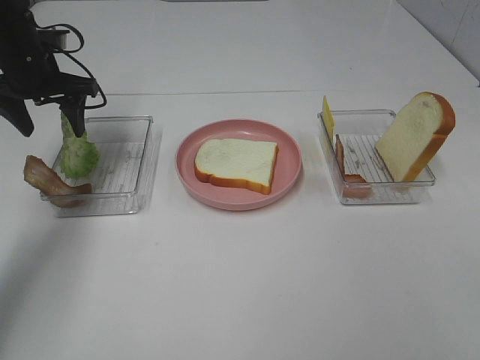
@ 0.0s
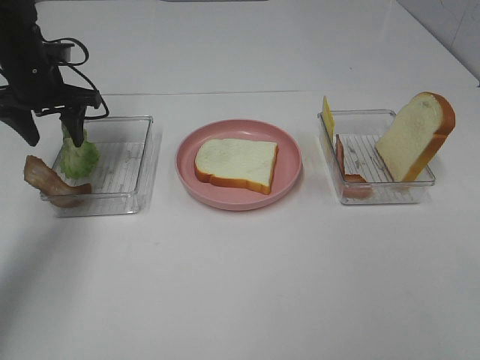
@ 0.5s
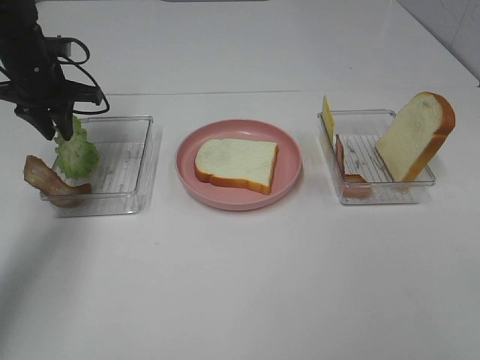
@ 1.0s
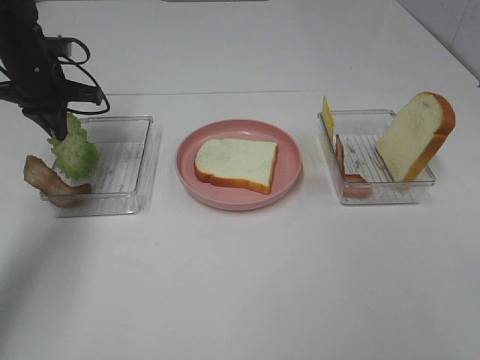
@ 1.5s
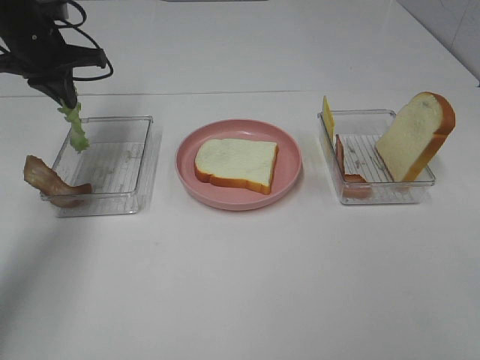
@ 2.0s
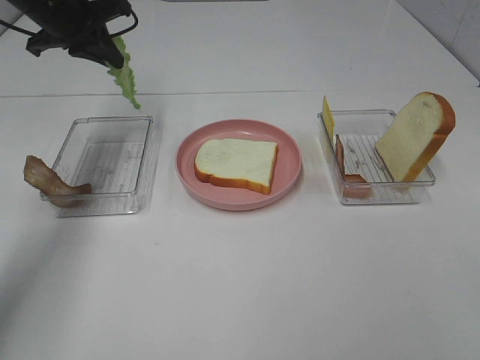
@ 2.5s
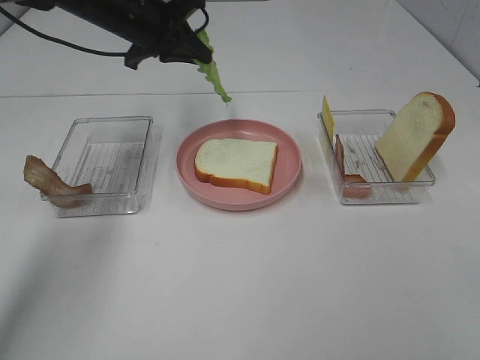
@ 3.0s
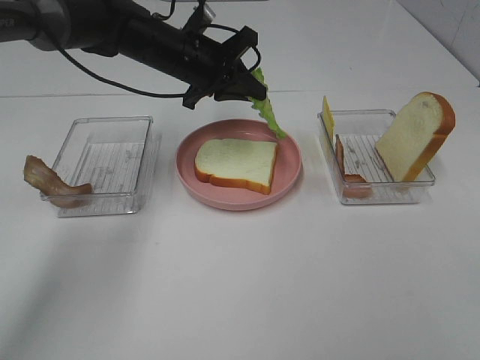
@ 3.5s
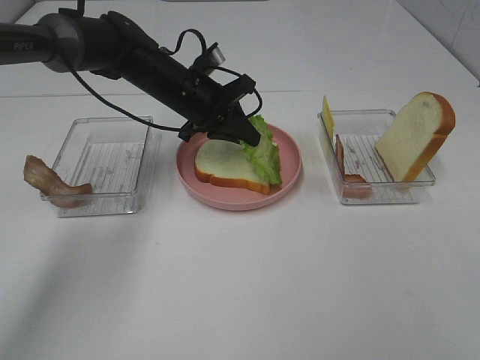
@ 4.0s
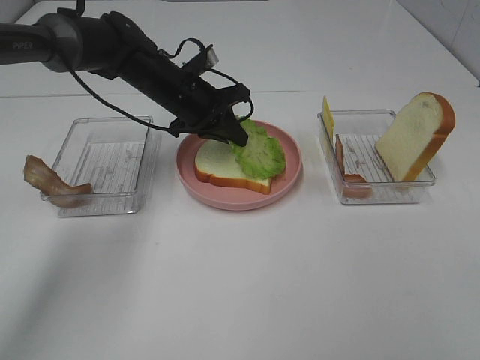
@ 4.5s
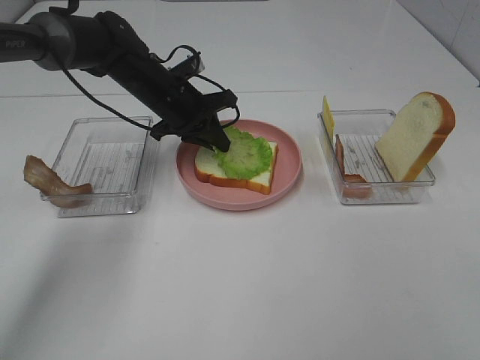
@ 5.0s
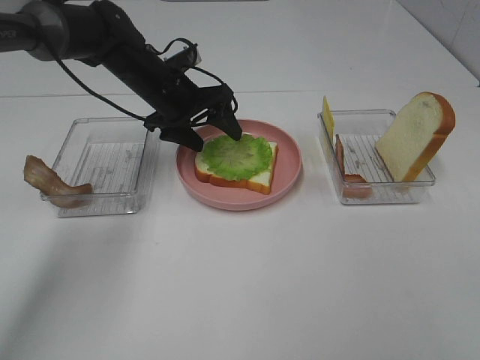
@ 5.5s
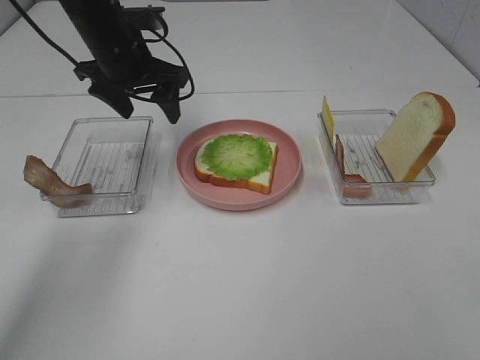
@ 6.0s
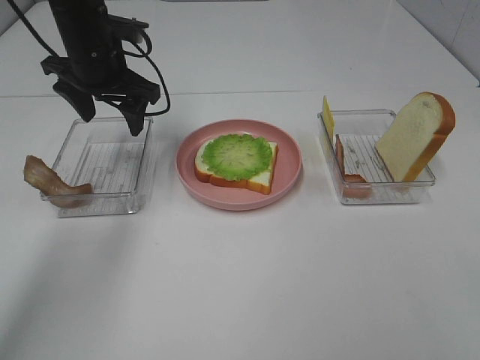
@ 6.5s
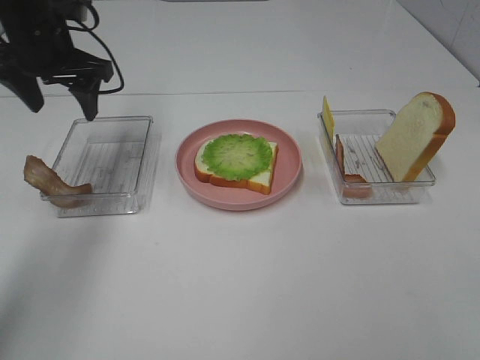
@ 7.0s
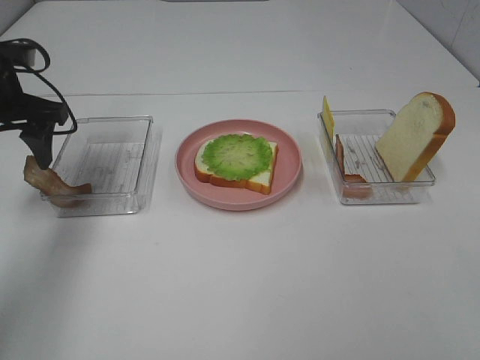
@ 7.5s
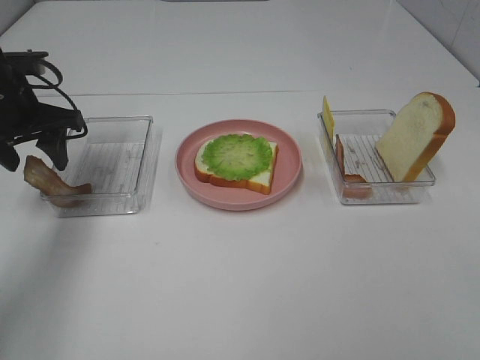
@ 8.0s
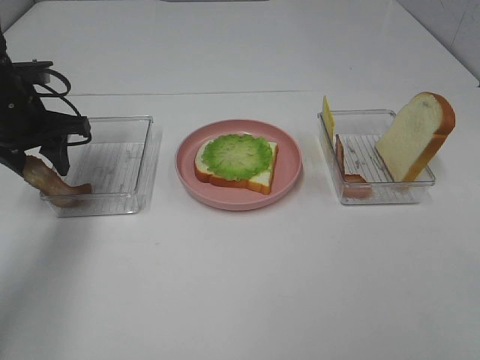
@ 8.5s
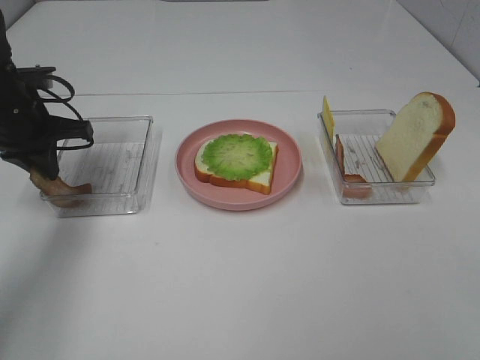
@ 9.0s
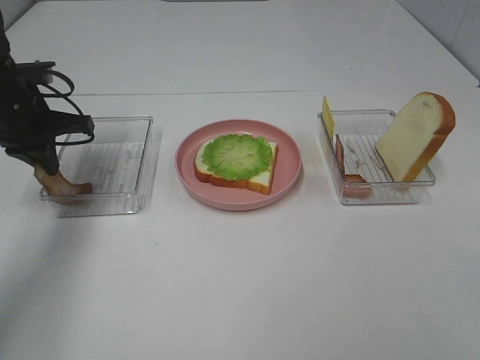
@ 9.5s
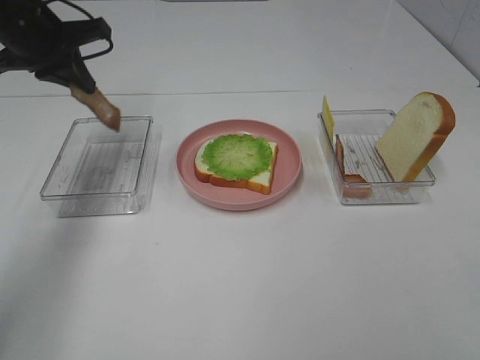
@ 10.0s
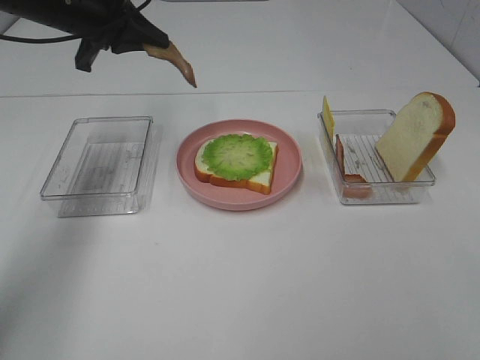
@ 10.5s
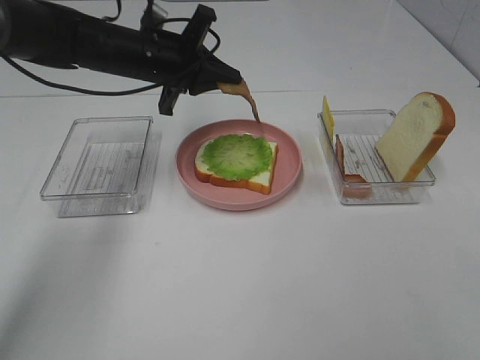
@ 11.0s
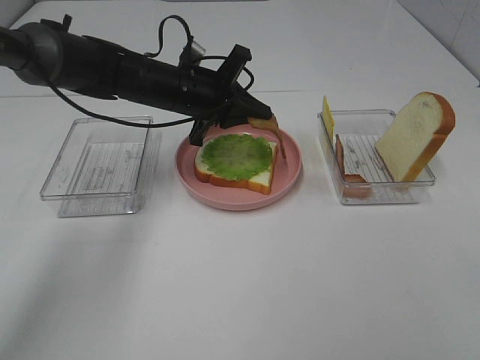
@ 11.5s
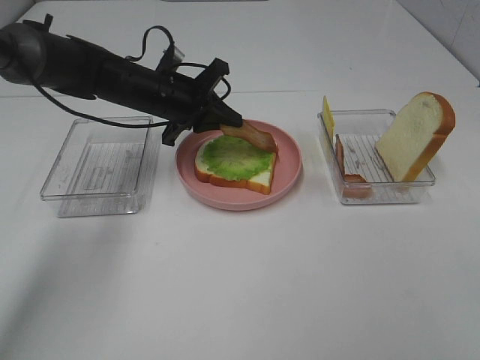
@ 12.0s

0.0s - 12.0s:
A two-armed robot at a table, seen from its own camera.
Task of the whole recording: Make sandwiches.
Step, 1.5s - 5.5s: Left hand:place the lettuce slice on the bread slice.
Step, 6.0s - 9.0s: Left hand:grab the bacon.
0.0s - 2.0s: The left gripper closes up.
2.0s - 4.0s: The left gripper is displaced to the right and downward by some 20 cm.
4.0s - 6.0s: The left gripper moves upward and to the left, about 10 cm, and opens.
6.0s - 8.0s: The left gripper shifts roughly 15 cm to the left and backward.
8.0s - 10.0s: The left gripper shifts some 5 cm upward, and closes.
10.0s - 12.0s: The left gripper is displaced downward and to the right by about 15 cm.

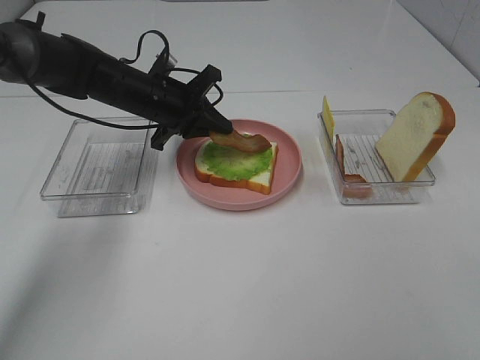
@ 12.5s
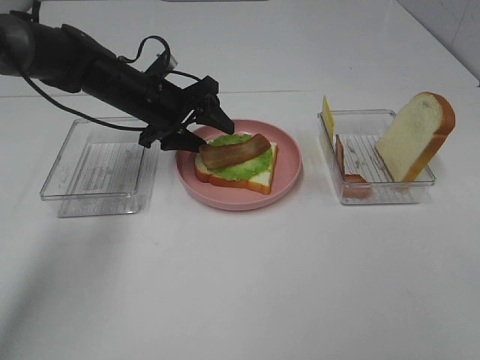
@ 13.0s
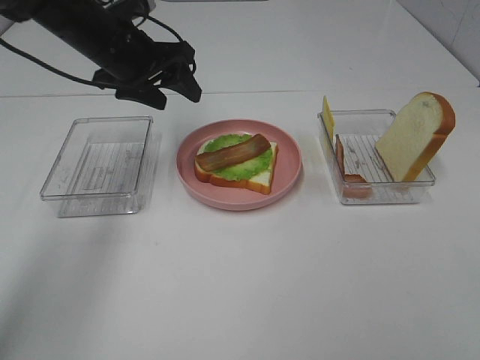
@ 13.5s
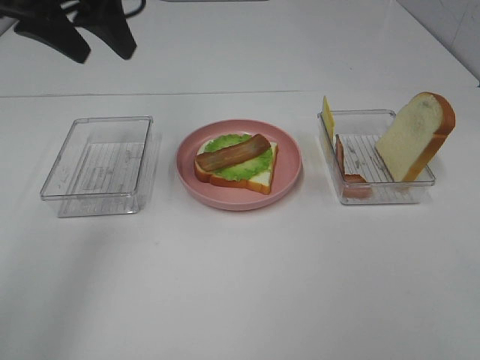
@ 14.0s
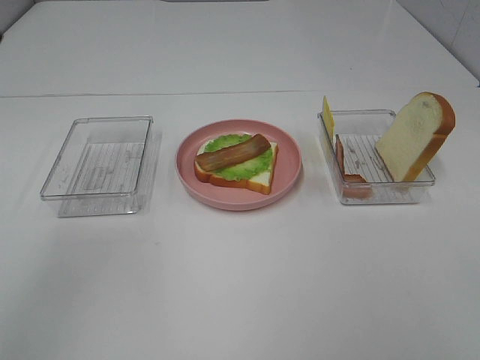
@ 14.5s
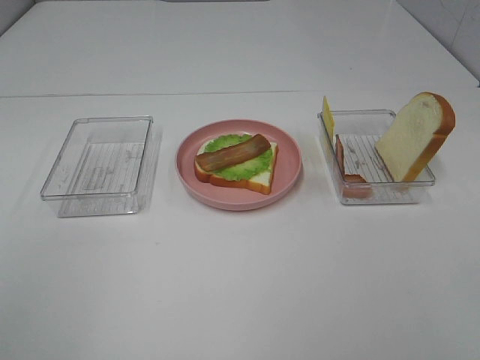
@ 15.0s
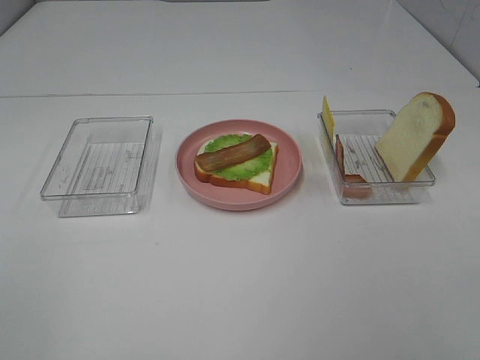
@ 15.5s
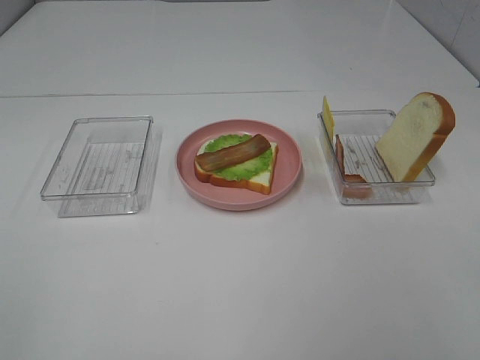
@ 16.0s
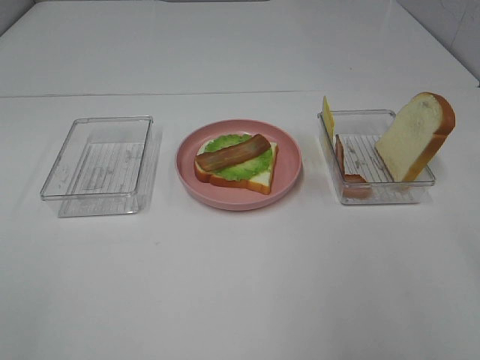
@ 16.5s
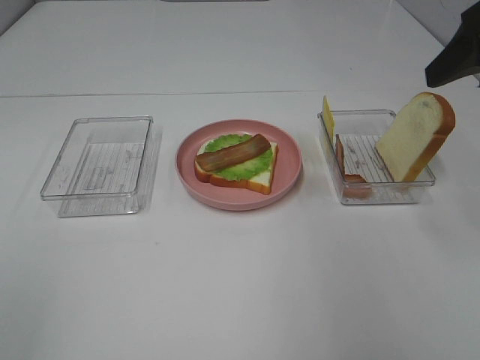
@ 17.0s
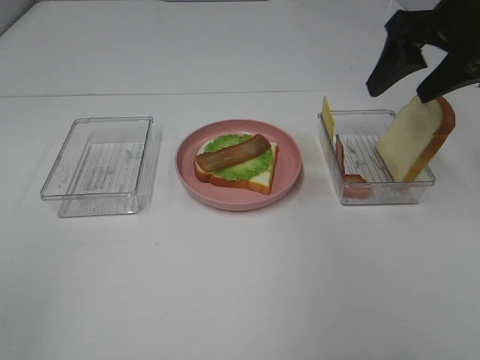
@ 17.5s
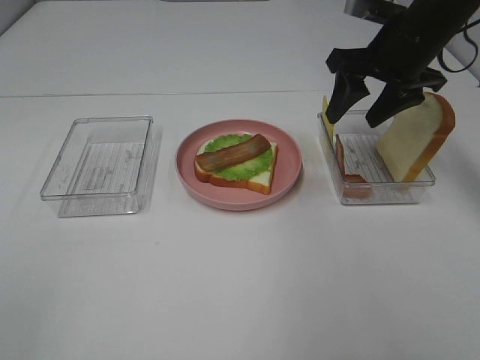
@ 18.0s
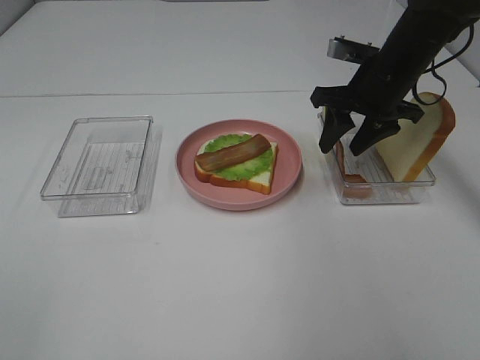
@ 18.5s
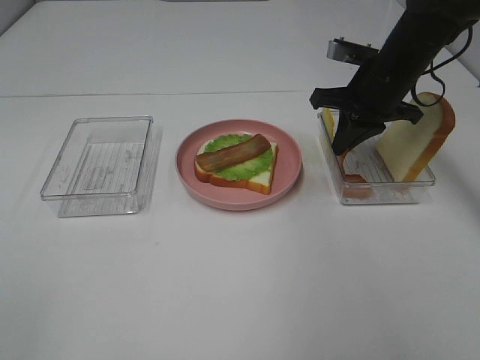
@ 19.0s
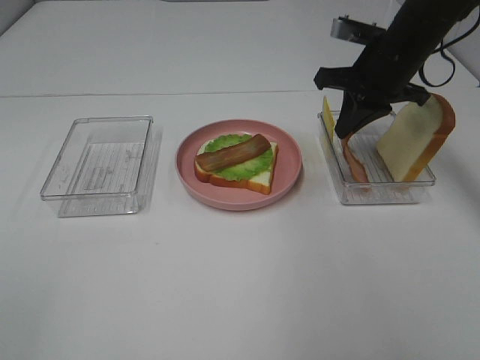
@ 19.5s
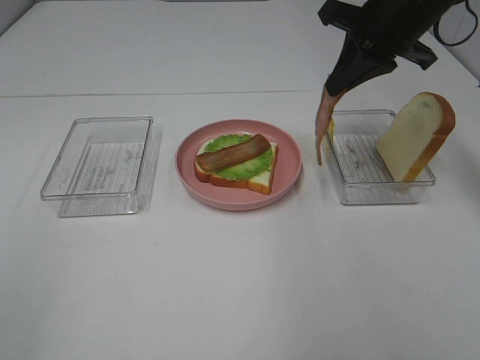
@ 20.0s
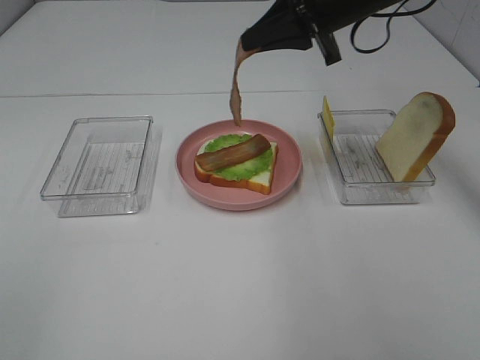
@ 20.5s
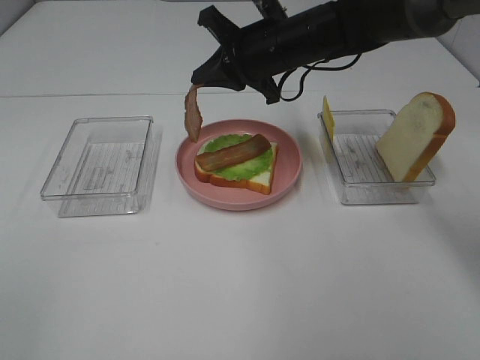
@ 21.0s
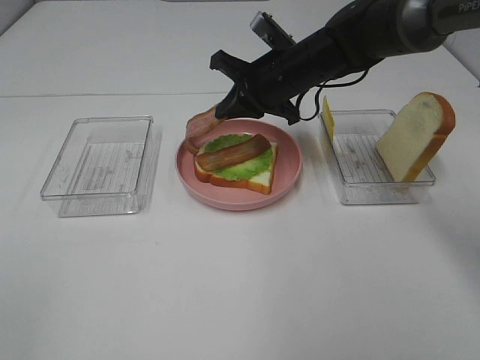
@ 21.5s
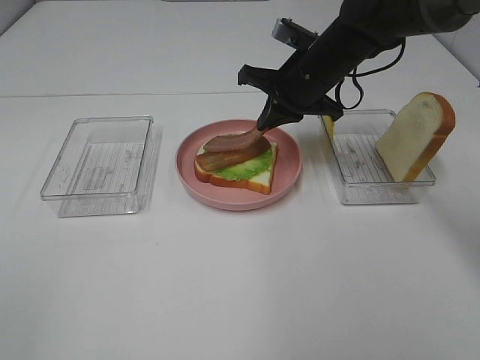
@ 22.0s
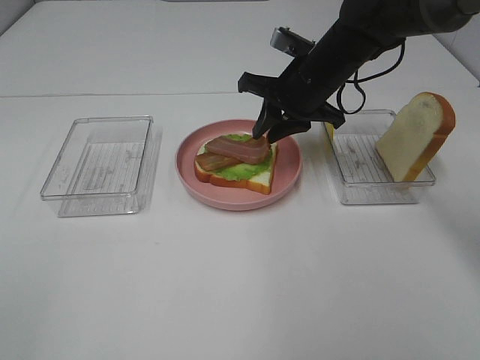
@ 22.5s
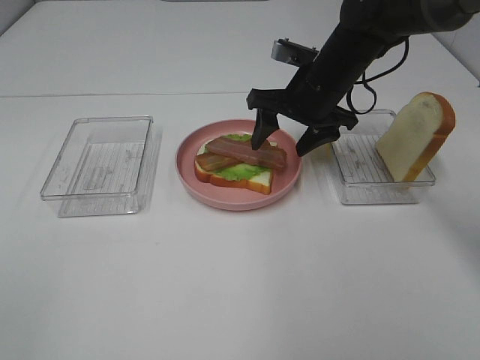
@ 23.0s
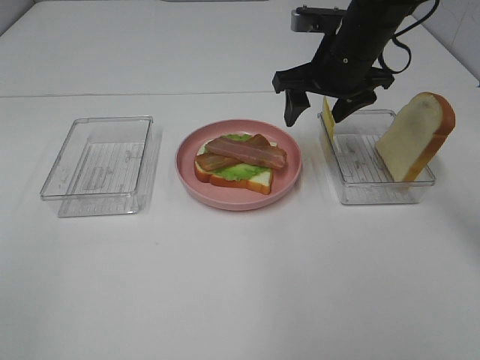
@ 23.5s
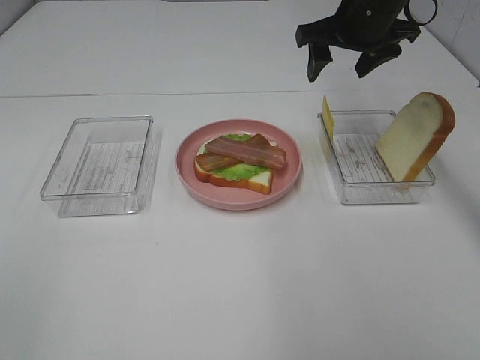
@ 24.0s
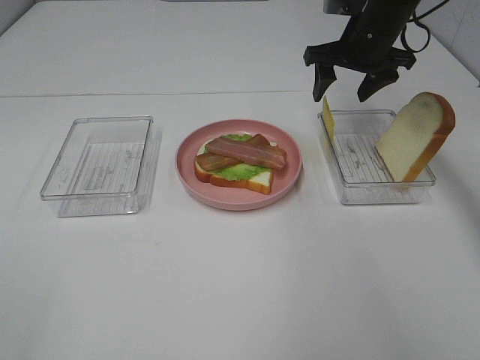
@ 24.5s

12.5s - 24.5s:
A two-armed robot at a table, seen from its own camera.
Task of the whole recording: Make sandwiches.
Step, 13.5s - 19.0s: Right hand:grab the bacon.
Step, 19.5s - 23.0s: Right hand:place bacon on bacon.
12.5s - 14.5s: The left gripper travels upward, backward and to the left by some 40 cm, and opens.
16.5s - 18.5s: The right gripper moves forward and downward, some 30 cm.
18.5s - 20.5s: The right gripper shifts about 10 cm upward and to the left, and closes its fingers.
20.5s - 22.5s: The right gripper moves downward, about 10 cm, and opens up.
22.5s - 24.5s: The right gripper shifts some 10 cm to the right and forward, and opens.

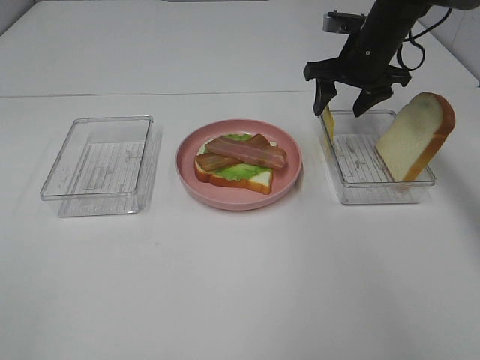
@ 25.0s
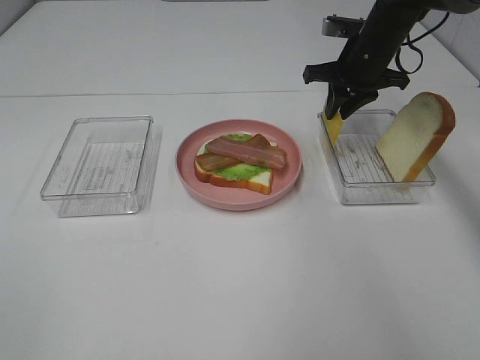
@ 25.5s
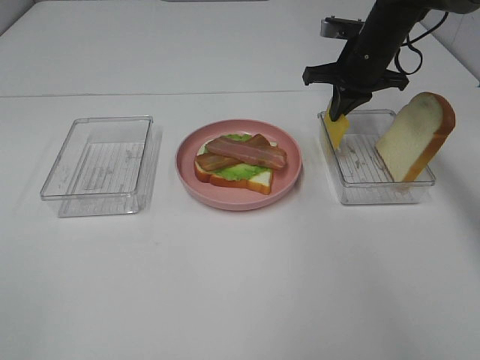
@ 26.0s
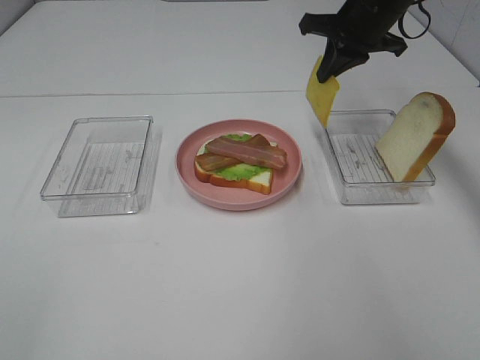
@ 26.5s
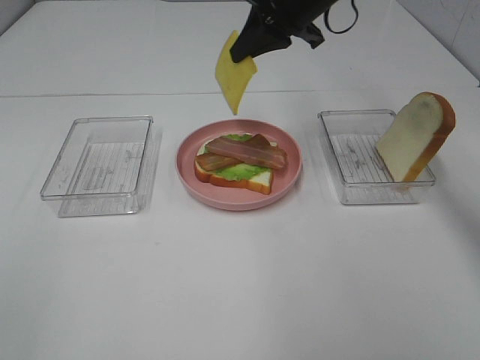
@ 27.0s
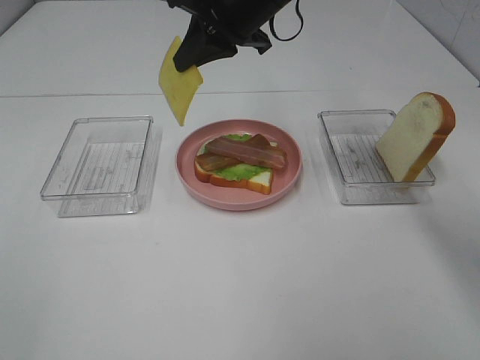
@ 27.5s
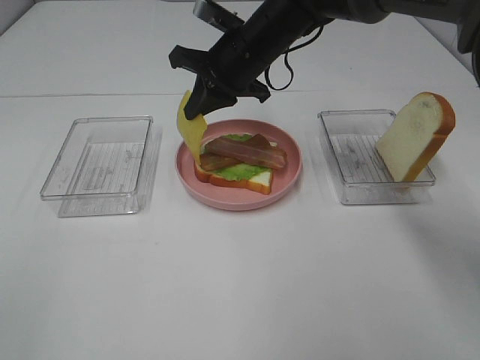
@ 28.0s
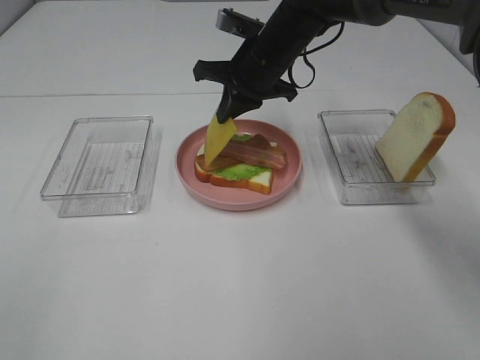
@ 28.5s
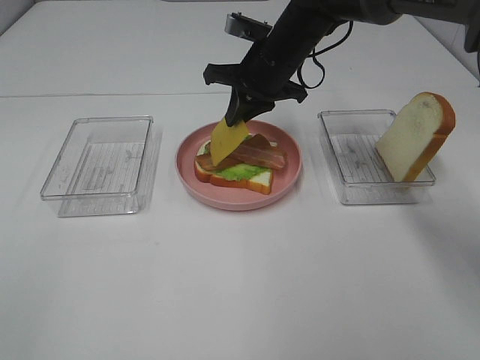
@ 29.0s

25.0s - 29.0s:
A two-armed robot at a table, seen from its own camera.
Task of the whole recording: Make sandwiches.
25.0s - 27.0s: The right gripper travels to the left and upward by some 15 cm, and closes up.
27.0s - 29.0s: The right gripper heads downward, covering roughly 10 cm.
